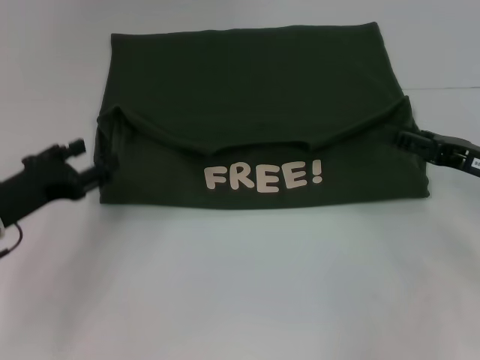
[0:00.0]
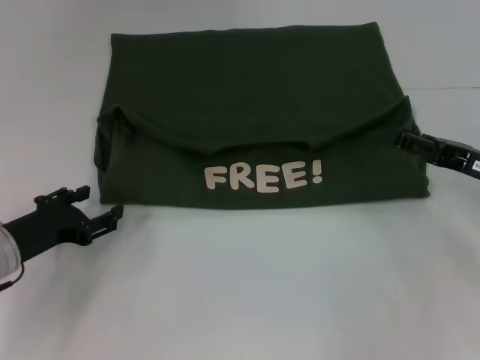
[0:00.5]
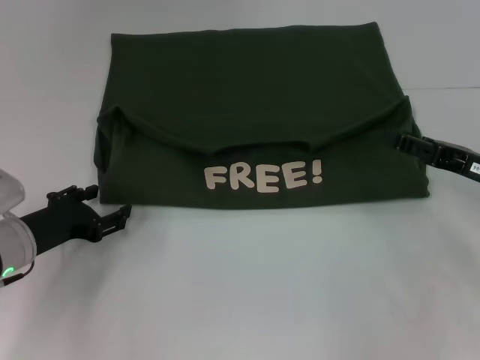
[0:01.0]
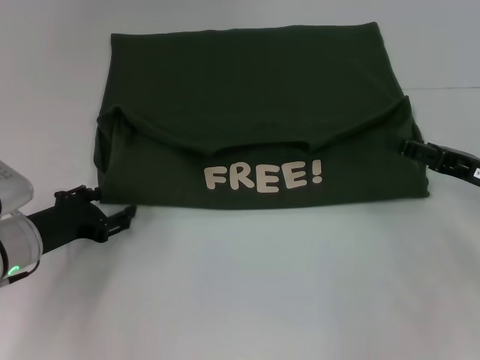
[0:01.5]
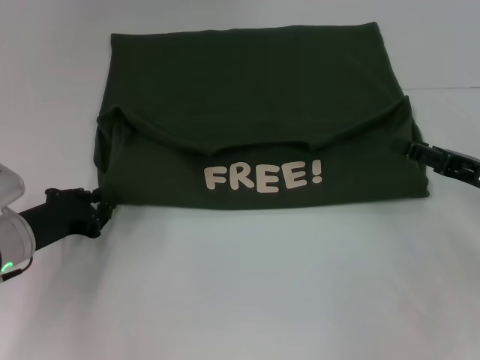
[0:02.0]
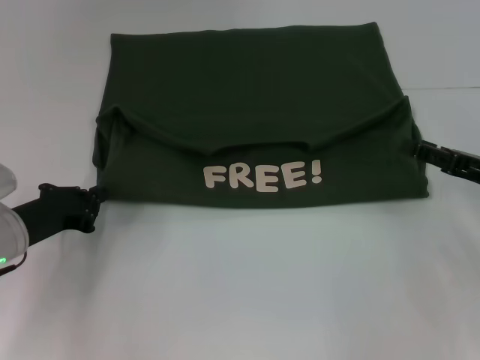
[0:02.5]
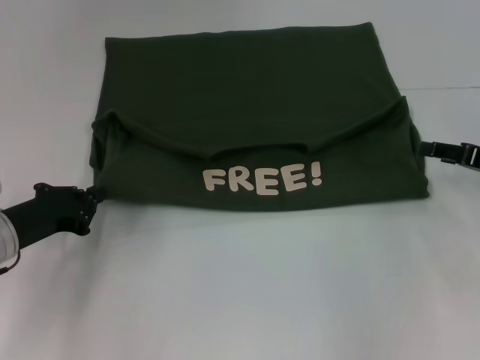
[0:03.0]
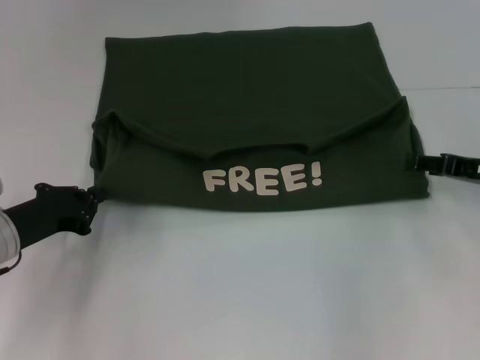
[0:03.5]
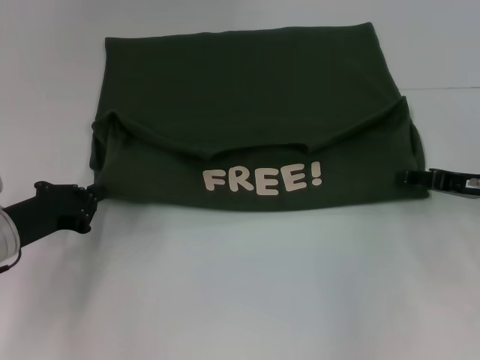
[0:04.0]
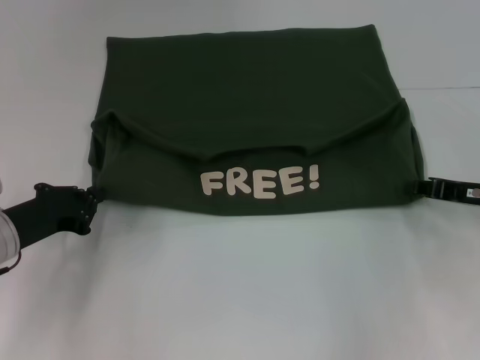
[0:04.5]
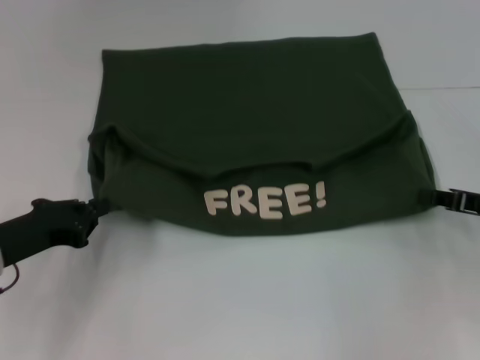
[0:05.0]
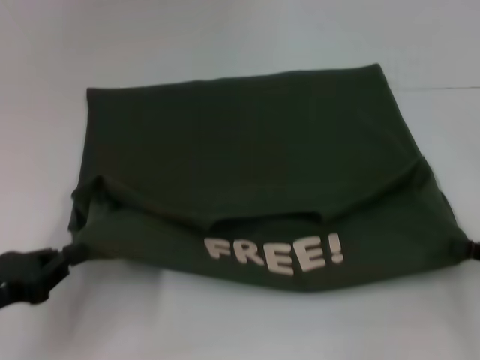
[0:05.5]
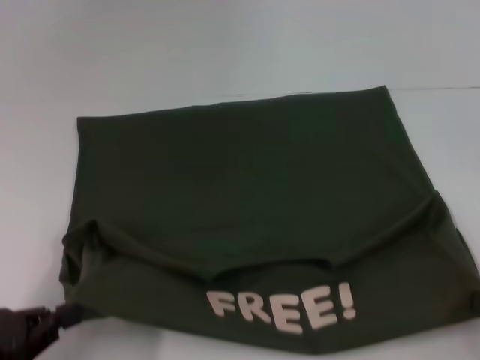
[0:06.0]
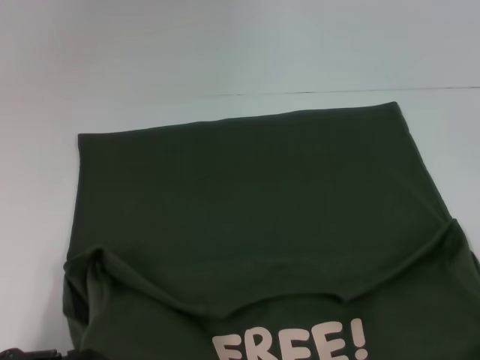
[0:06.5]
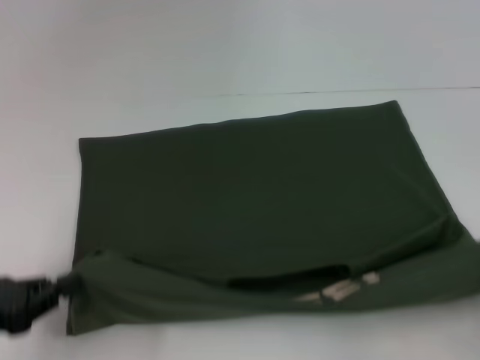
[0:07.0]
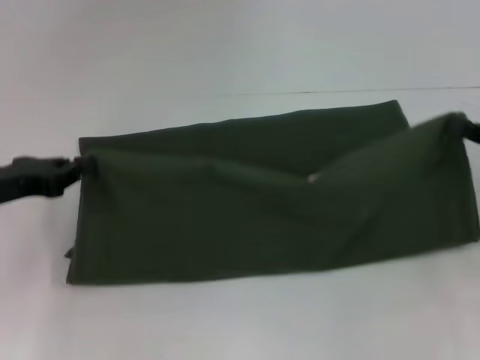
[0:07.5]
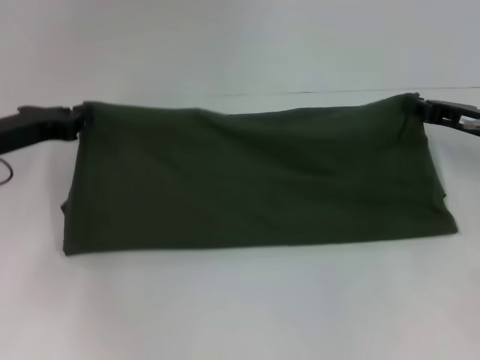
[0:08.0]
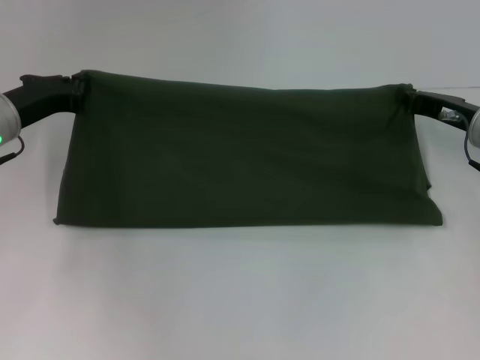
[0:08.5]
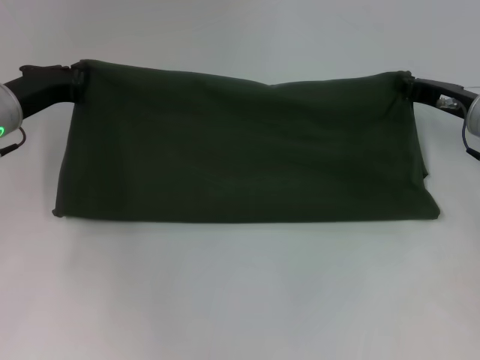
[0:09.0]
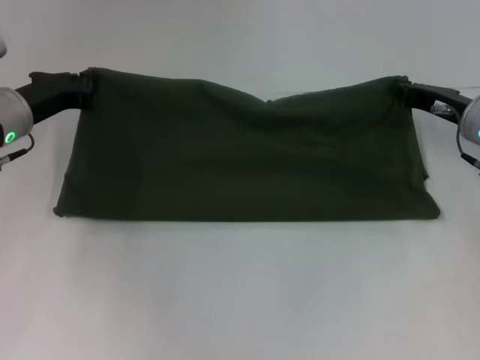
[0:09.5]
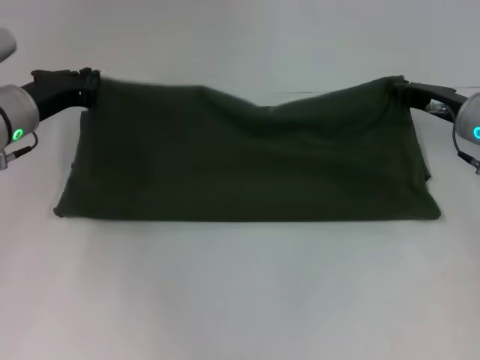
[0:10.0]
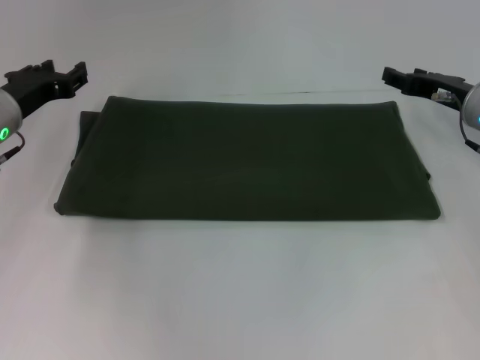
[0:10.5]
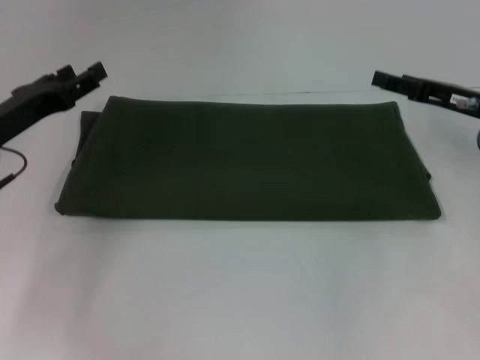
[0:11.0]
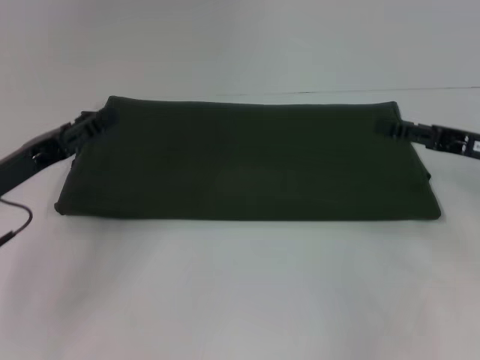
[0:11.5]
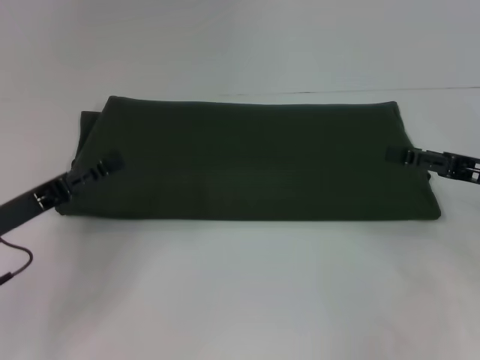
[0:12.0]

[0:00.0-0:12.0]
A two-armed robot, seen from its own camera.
Step, 0:00.0 to 0:06.5: Pull the clothes with your left hand.
Step, 0:00.0 to 0:06.5: Pull the clothes with your right hand.
Step, 0:07.0 to 0:10.0: Fold the clothes with your right hand.
0:00.0 to 0:02.0: The left gripper closes up.
0:02.0 to 0:04.0: The left gripper closes up.
0:04.0 to 0:06.0: Both grippers move backward, about 15 cm. The right gripper closes up.
0:06.0 to 0:08.0: Both grippers move forward, some 20 cm.
0:08.0 to 0:10.0: The left gripper shifts by about 5 cm.
0:10.0 to 0:12.0: The left gripper is displaced backward by some 15 cm, and opens up; the right gripper heads backward and to the right, covering roughly 10 cm, and opens.

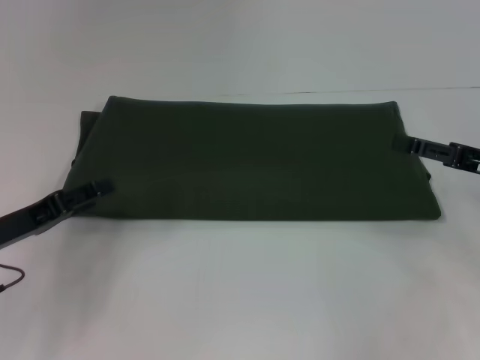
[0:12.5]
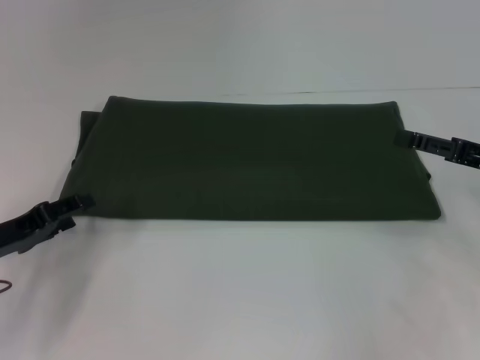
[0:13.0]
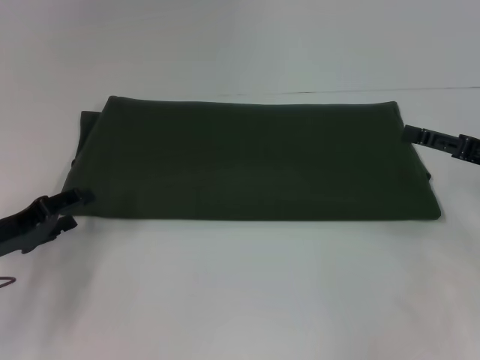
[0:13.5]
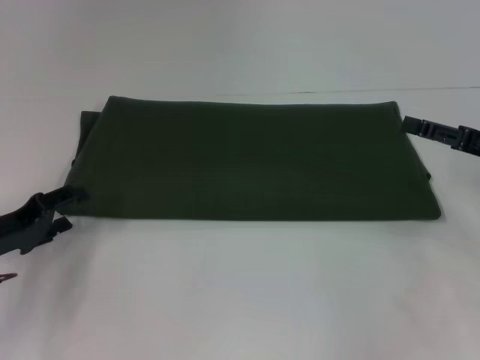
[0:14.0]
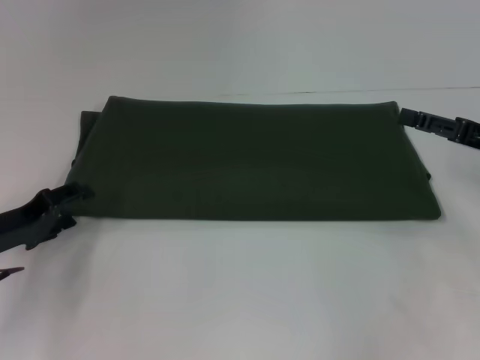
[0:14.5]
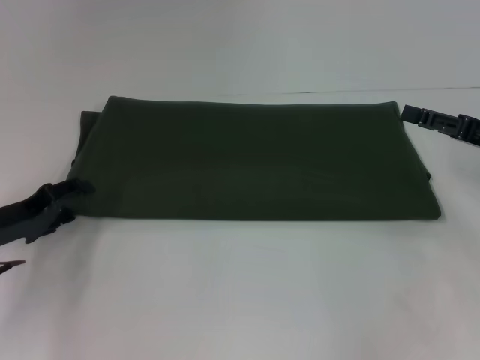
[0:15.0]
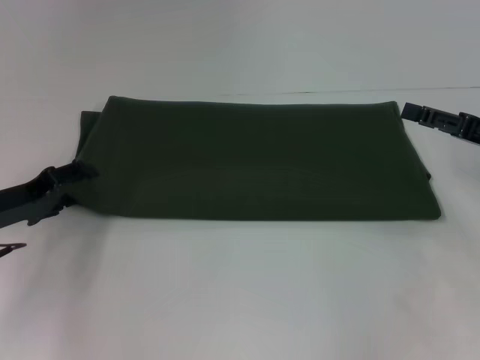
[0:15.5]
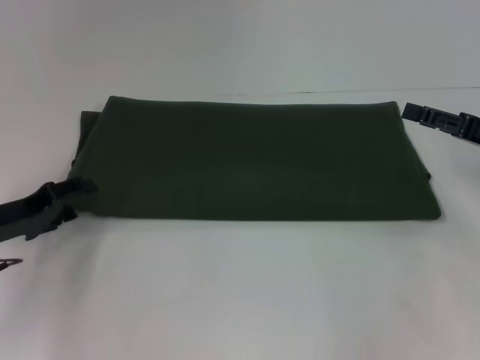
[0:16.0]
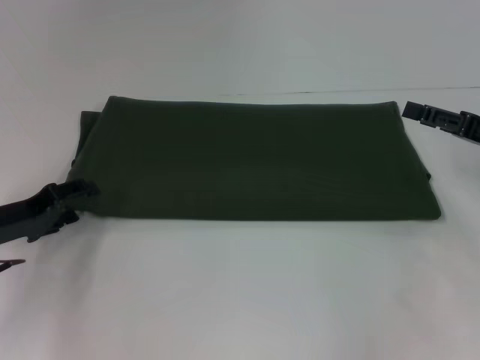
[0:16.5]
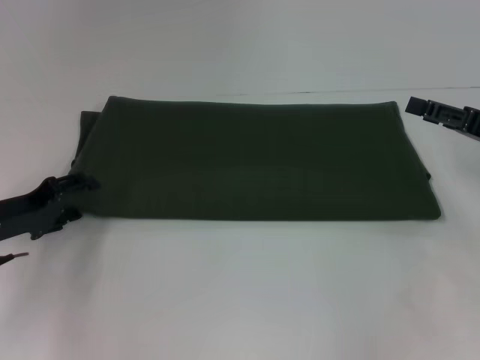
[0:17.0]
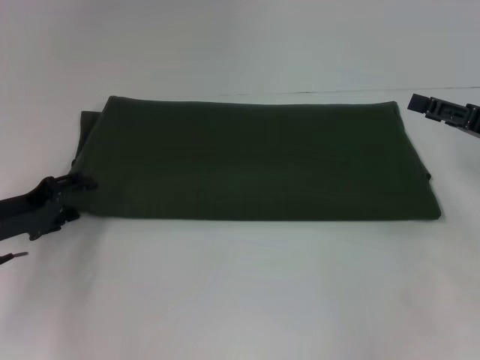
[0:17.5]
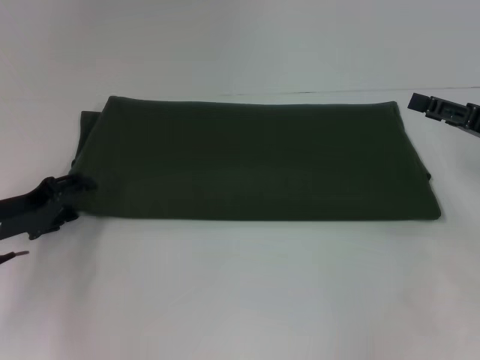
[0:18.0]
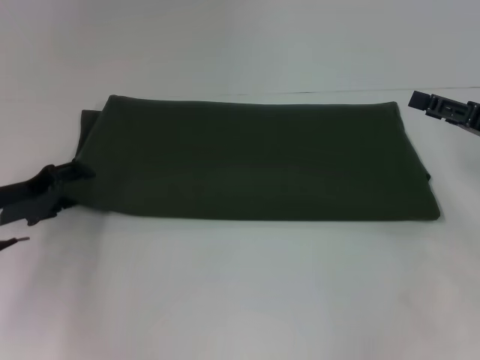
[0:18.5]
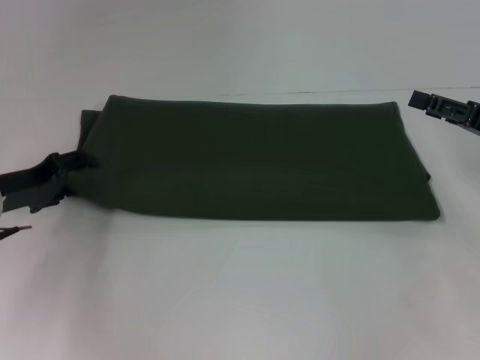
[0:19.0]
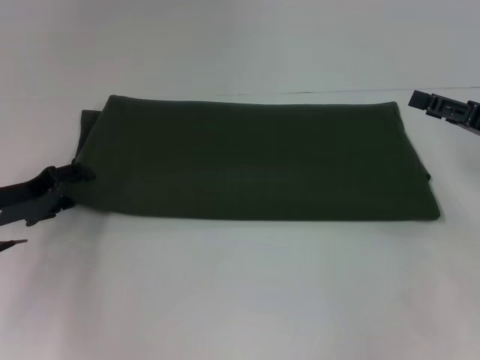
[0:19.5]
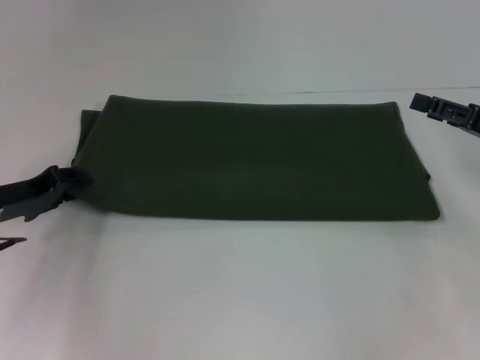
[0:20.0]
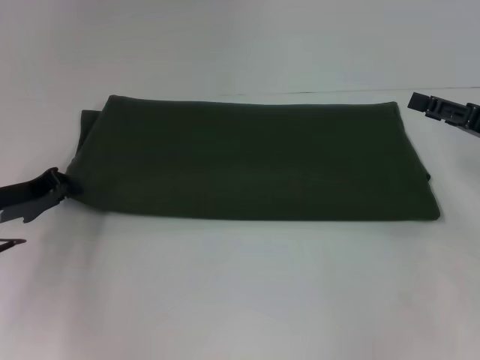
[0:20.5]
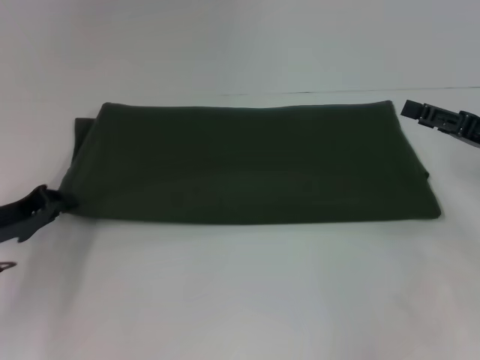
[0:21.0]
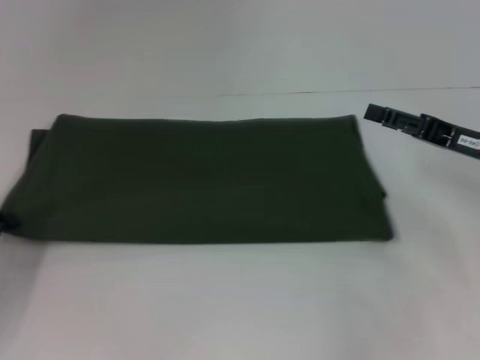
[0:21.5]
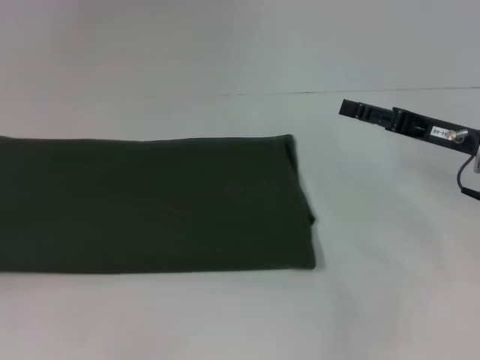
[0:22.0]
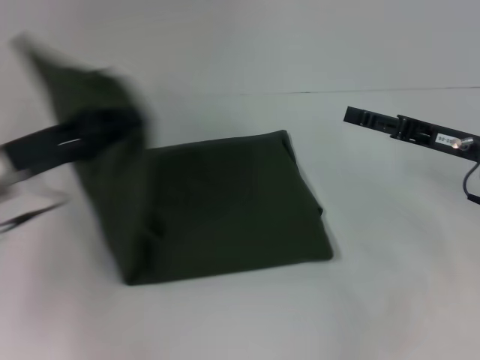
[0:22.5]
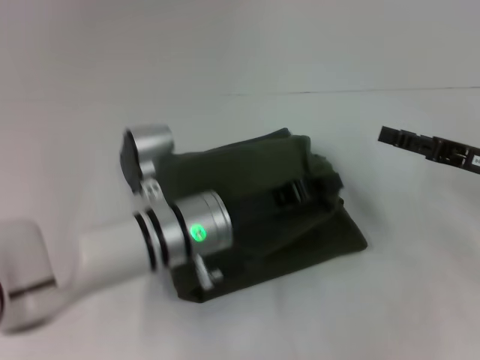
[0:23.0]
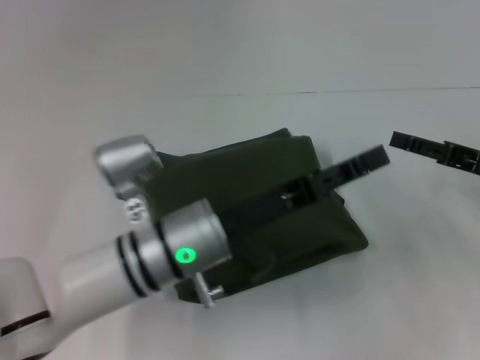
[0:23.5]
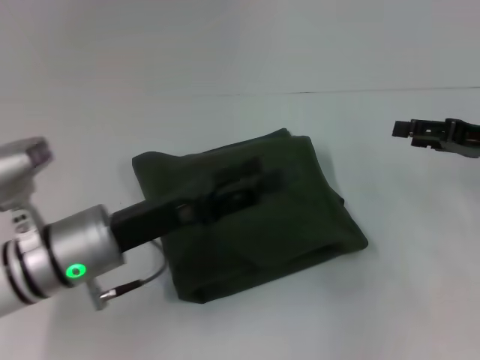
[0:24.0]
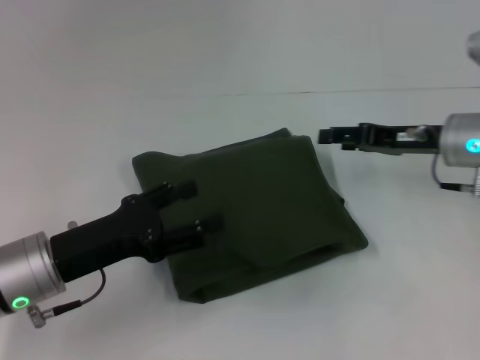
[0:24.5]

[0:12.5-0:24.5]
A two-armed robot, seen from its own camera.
Step, 0:12.5 to 0:23.0: Fold the clothes with your left hand.
0:14.5 to 0:18.5: The grippers move only a little.
0:18.5 to 0:20.5: The left gripper closes its fingers.
0:20.5 to 0:22.5: The left gripper goes approximately 5 cm upward, and reaches roughly 15 cm to the left, then returns, while the right gripper shifts about 5 cm to the left.
0:22.5 to 0:24.5: The left gripper travels backward and downward by roughly 10 cm, goes to the right and returns, some 20 cm each way, and opens up; the right gripper changes place by roughly 5 cm.

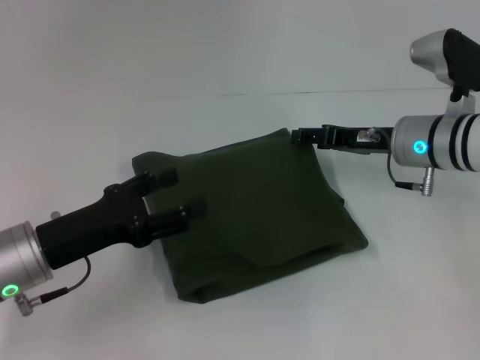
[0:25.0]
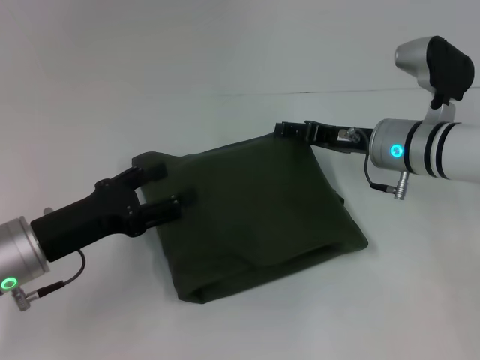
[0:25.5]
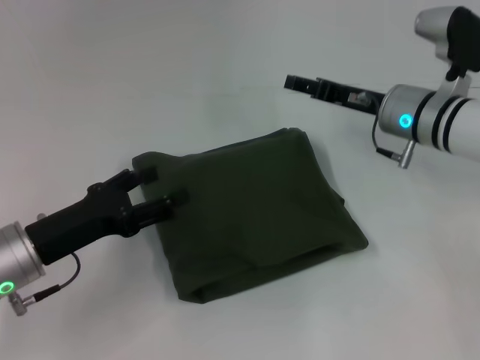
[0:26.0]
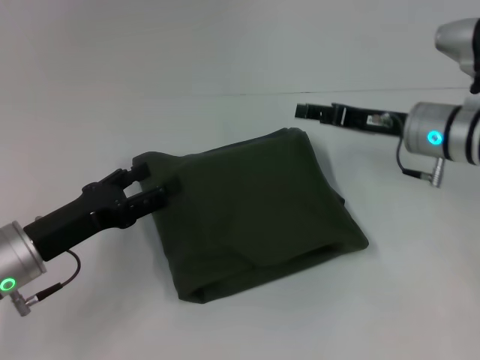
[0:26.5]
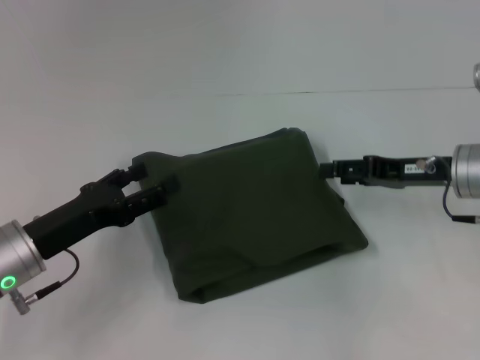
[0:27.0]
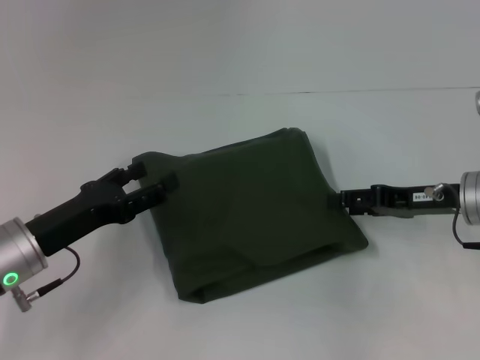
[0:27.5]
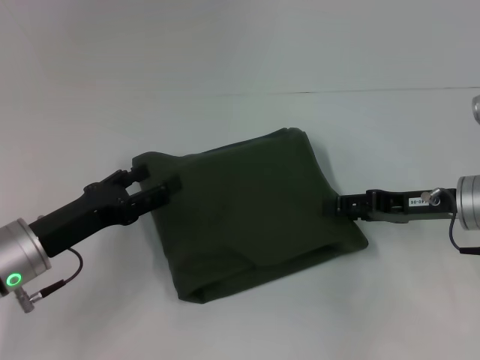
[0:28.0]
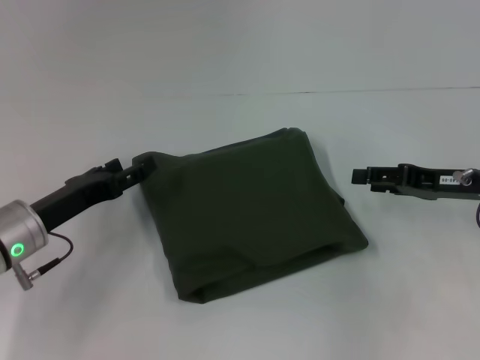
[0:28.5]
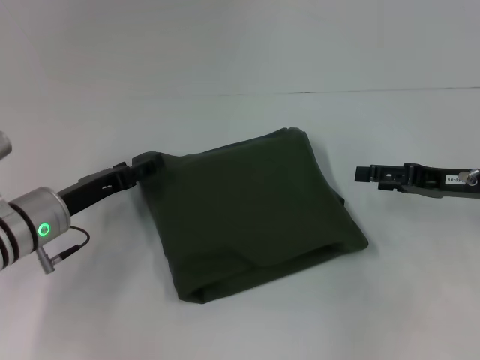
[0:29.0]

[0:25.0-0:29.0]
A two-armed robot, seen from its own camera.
0:25.0 to 0:27.0: The right gripper travels to the right by about 5 cm.
0:27.0 to 0:29.0: The left gripper goes some 5 cm forward.
